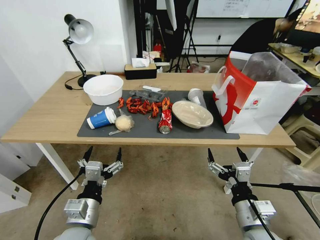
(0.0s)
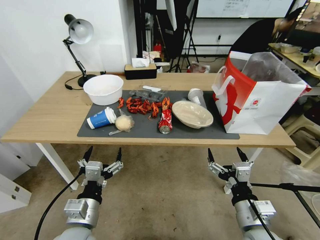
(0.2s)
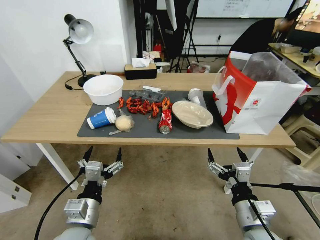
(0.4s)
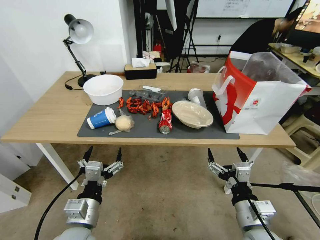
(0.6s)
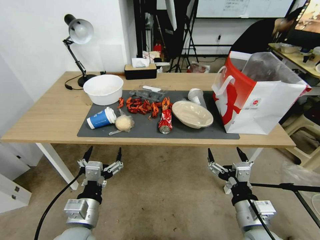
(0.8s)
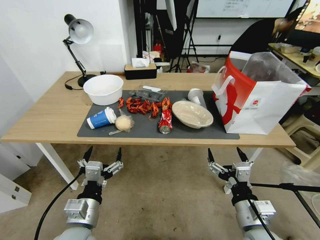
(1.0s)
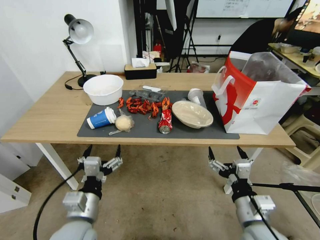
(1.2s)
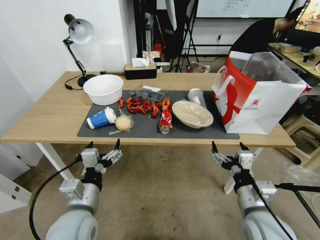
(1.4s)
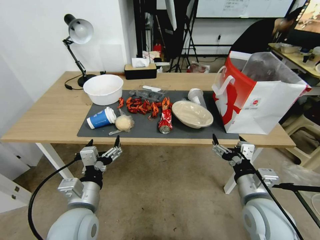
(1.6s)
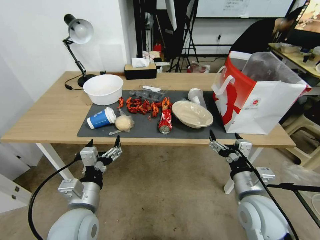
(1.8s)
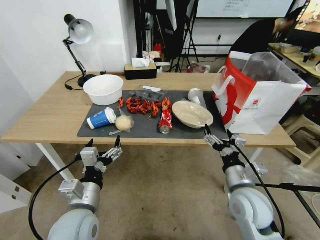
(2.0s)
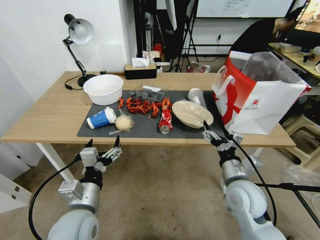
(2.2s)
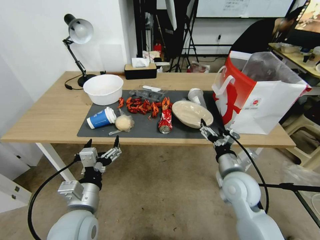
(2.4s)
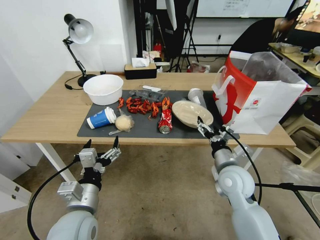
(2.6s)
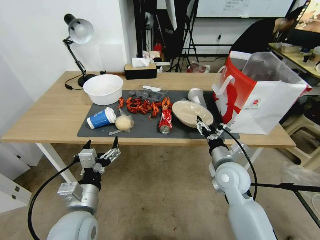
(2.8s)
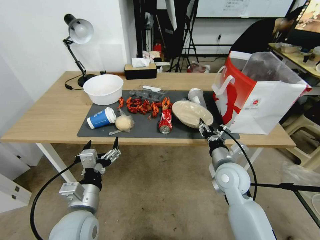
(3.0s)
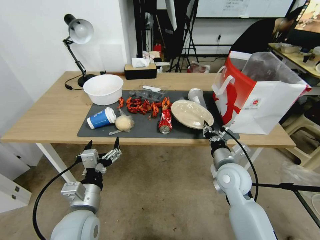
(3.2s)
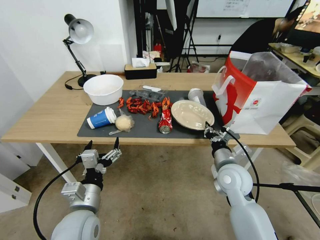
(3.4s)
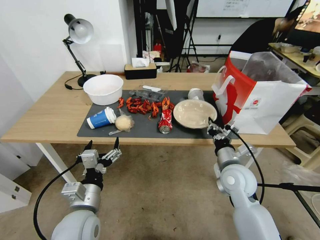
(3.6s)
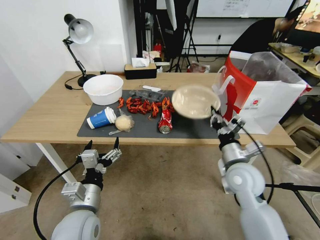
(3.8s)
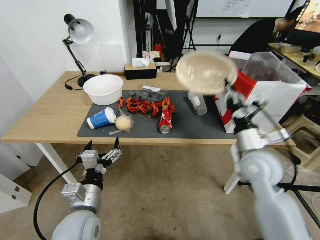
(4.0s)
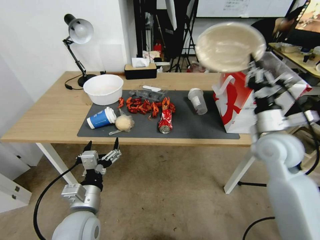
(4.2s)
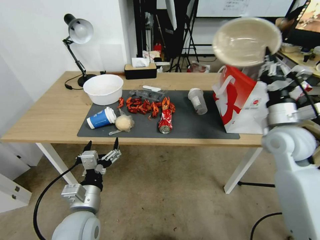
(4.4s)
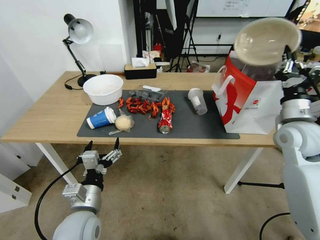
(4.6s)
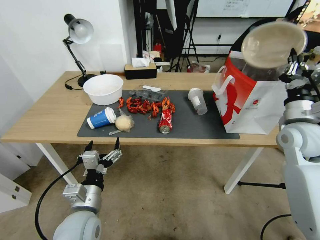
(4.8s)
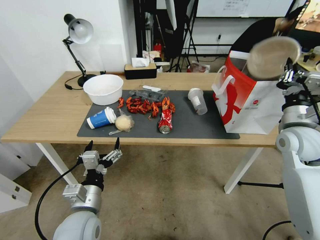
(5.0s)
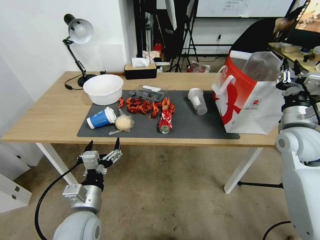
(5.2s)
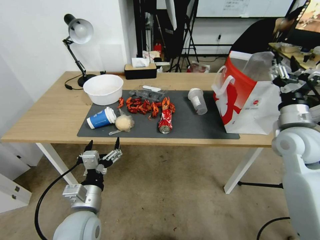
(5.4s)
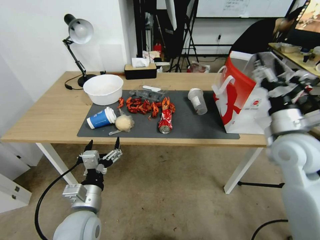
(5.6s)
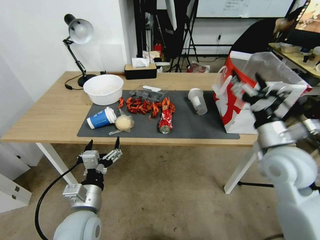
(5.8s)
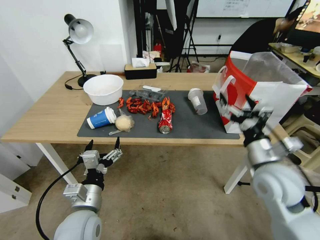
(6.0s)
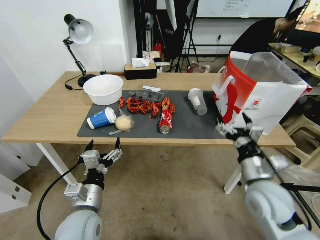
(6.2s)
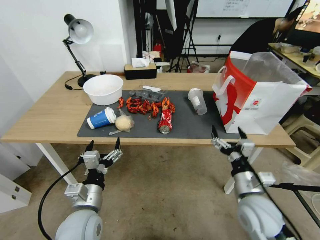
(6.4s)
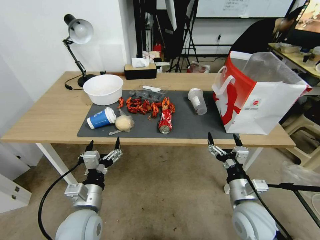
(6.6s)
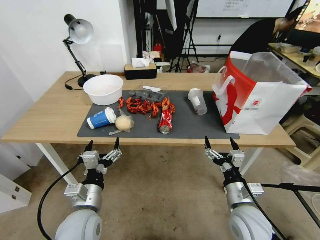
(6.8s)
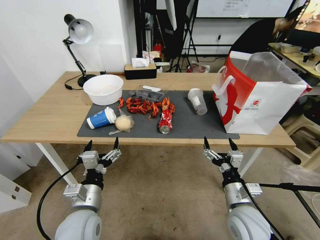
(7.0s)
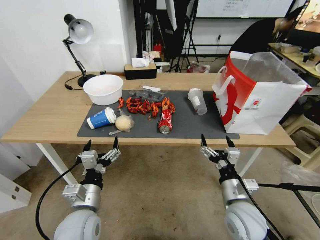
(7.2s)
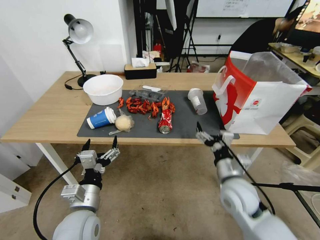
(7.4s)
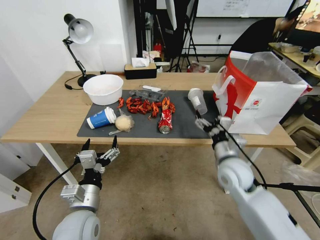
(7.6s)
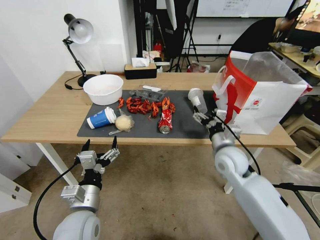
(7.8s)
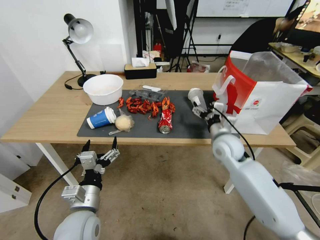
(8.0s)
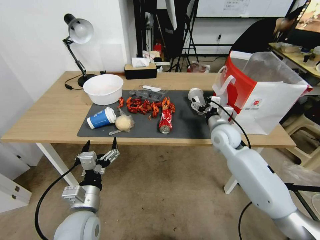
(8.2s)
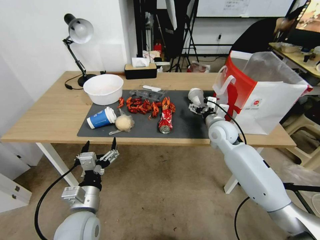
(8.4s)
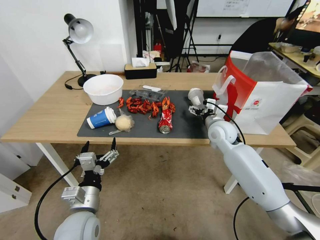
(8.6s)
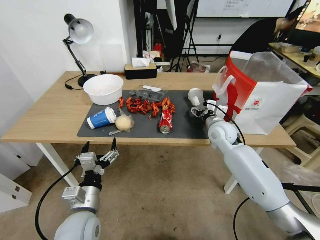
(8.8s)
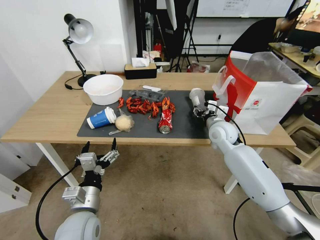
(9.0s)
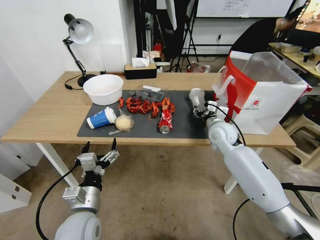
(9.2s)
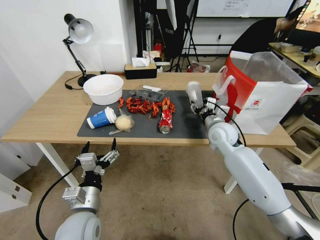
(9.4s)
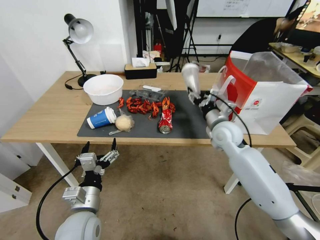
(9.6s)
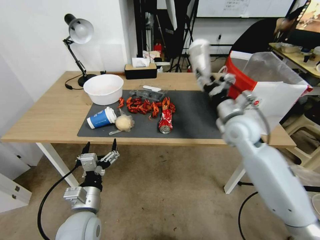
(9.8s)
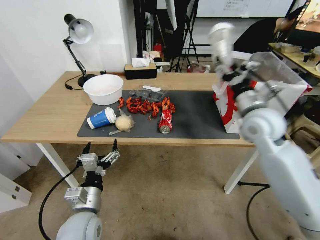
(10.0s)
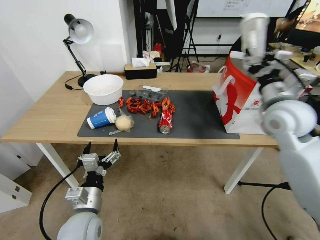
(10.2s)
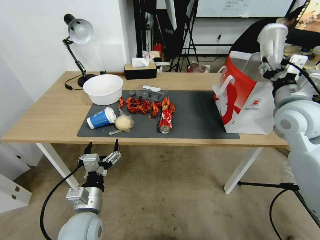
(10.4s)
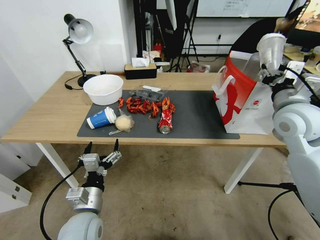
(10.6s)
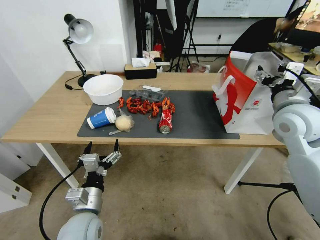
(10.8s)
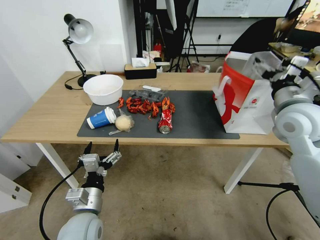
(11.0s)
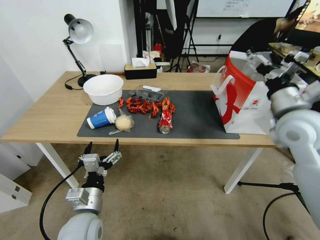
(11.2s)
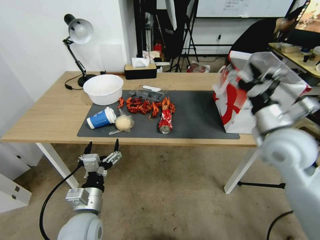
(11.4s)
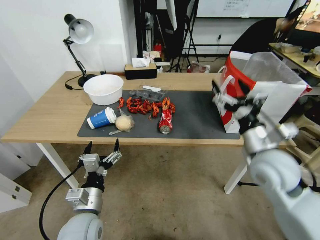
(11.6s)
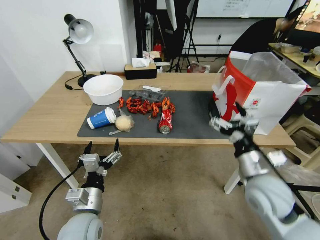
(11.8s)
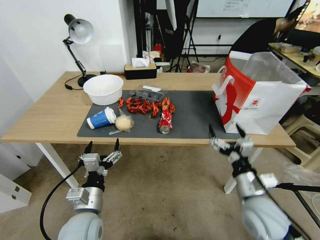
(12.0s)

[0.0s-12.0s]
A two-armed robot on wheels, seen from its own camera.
1.6s to 3.0s: The right gripper is displaced forward by approximately 10 cm, and closes its fingers.
3.0s to 4.4s: The right gripper goes about 15 cm upward and to the right, and closes its fingers.
4.4s to 6.0s: The right gripper is displaced backward by about 10 cm, and opens up.
6.0s to 7.6s: The right gripper moves downward and to the left, some 10 cm.
7.6s to 9.0s: The right gripper shifts some 15 cm forward, and closes.
9.0s to 10.4s: The right gripper goes approximately 25 cm upward, to the right and backward.
10.4s to 12.0s: The right gripper heads downward and backward, covering approximately 25 cm, and opens.

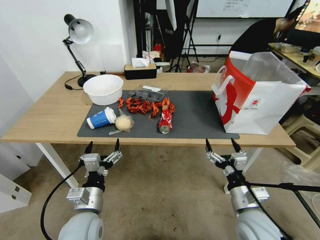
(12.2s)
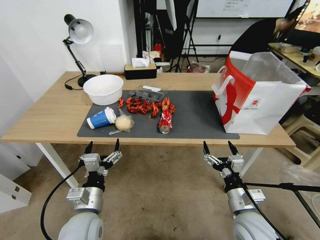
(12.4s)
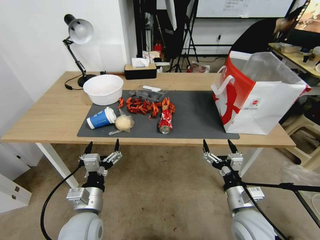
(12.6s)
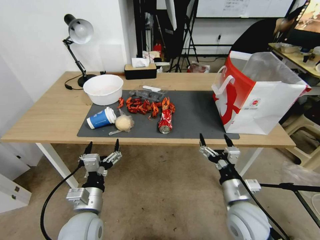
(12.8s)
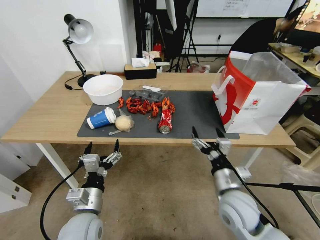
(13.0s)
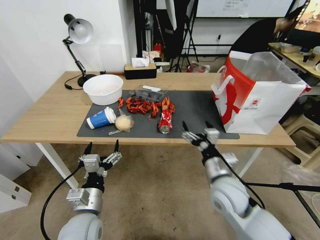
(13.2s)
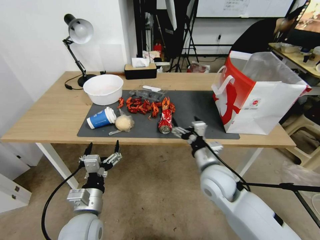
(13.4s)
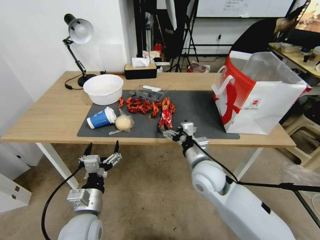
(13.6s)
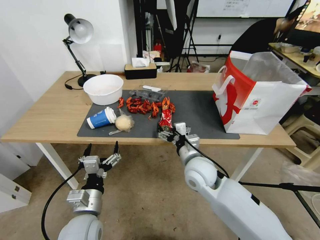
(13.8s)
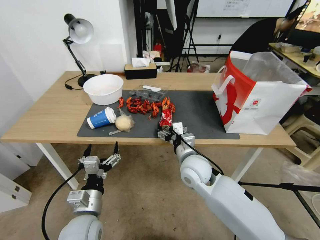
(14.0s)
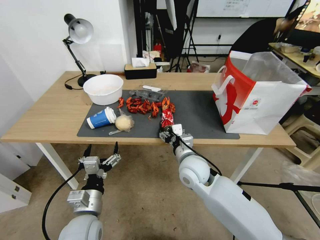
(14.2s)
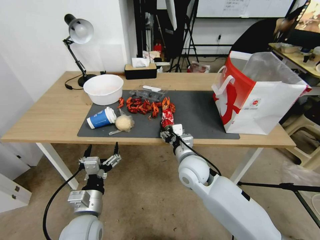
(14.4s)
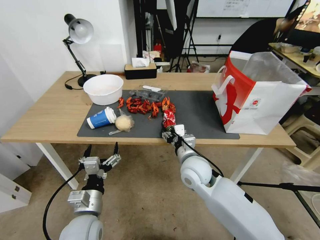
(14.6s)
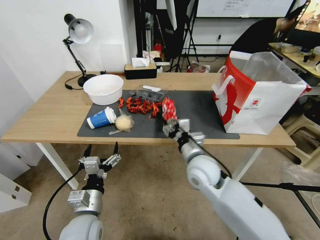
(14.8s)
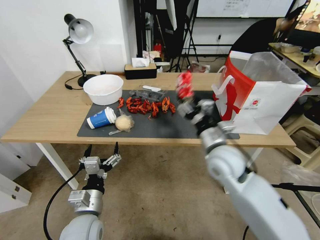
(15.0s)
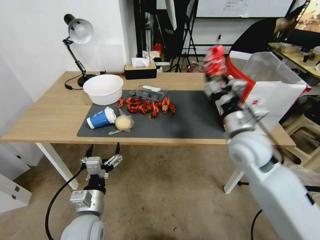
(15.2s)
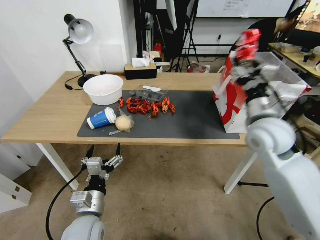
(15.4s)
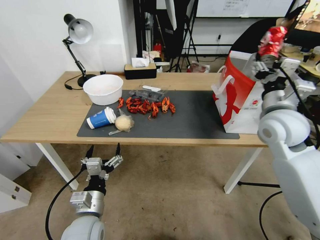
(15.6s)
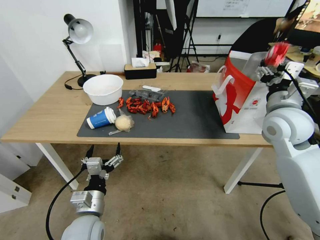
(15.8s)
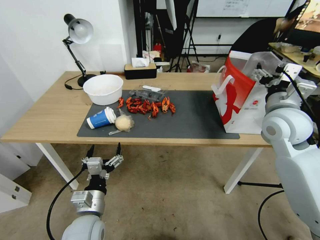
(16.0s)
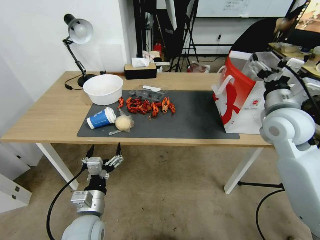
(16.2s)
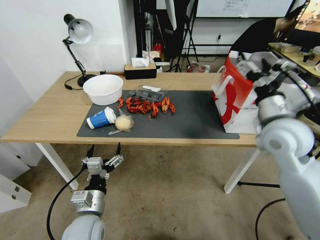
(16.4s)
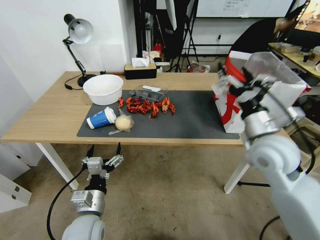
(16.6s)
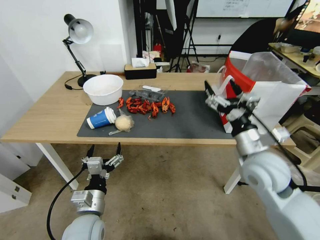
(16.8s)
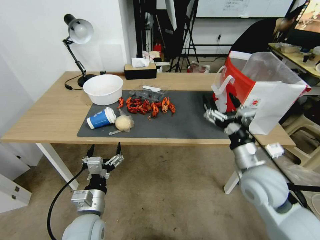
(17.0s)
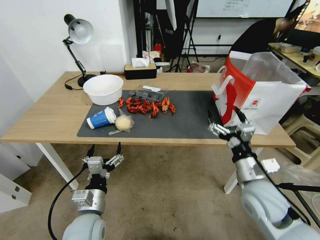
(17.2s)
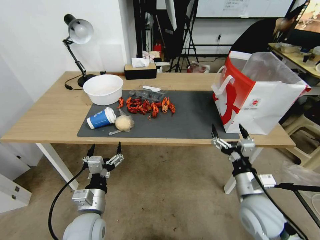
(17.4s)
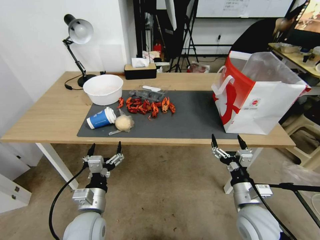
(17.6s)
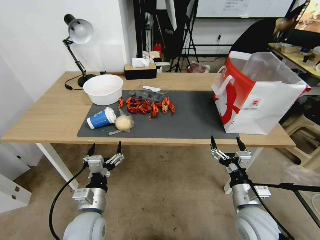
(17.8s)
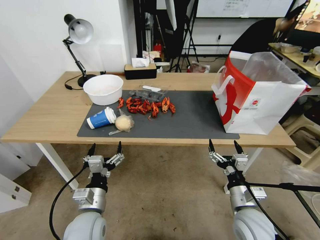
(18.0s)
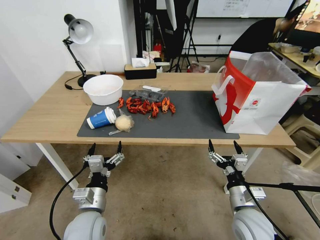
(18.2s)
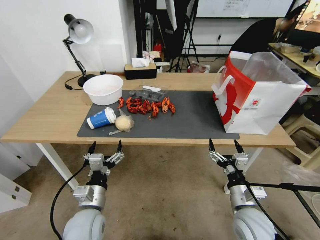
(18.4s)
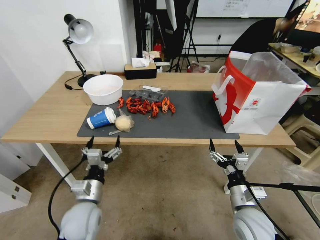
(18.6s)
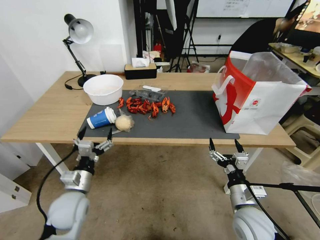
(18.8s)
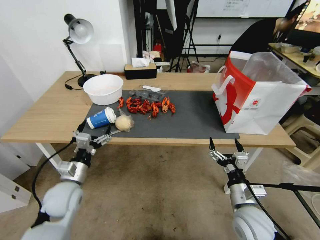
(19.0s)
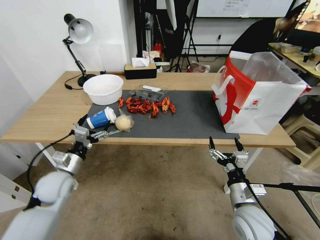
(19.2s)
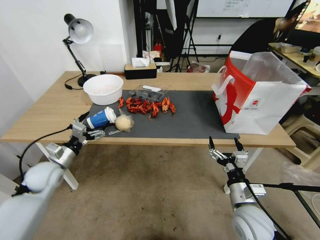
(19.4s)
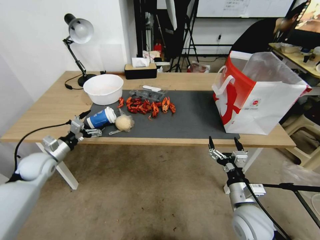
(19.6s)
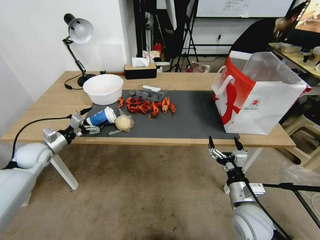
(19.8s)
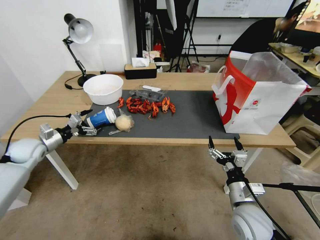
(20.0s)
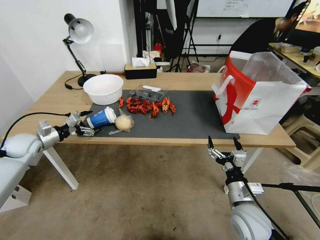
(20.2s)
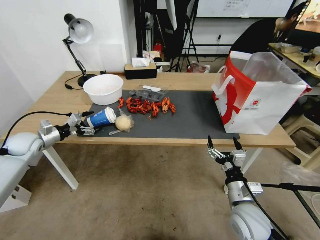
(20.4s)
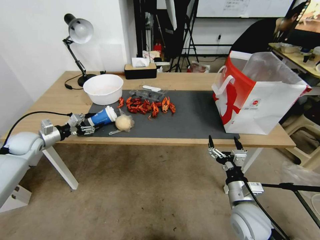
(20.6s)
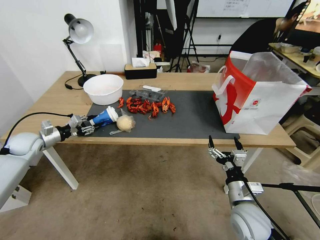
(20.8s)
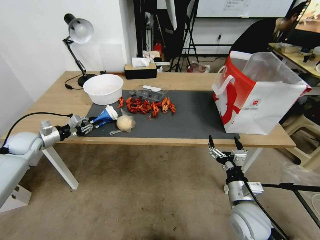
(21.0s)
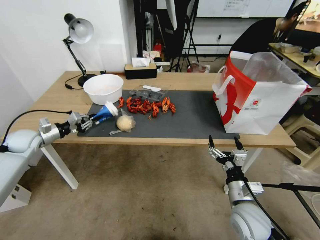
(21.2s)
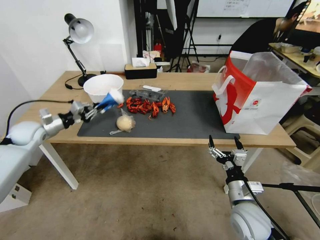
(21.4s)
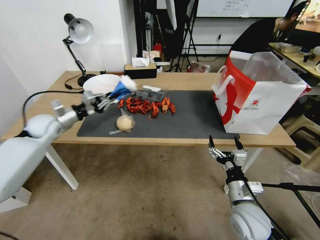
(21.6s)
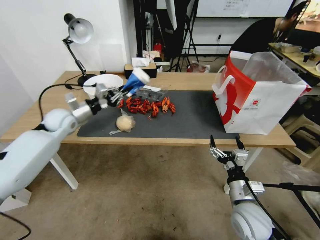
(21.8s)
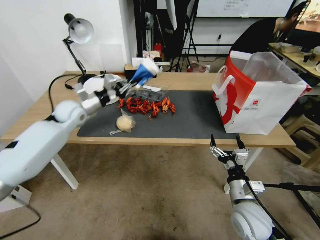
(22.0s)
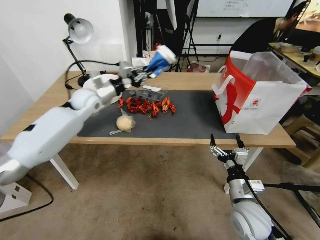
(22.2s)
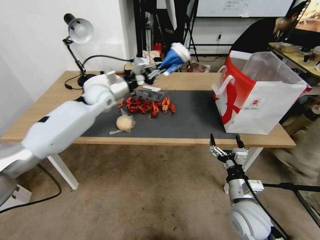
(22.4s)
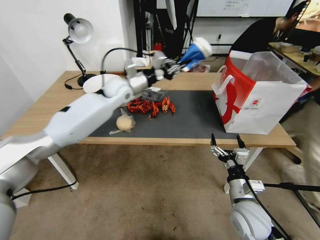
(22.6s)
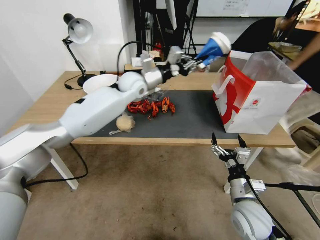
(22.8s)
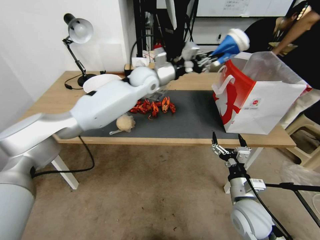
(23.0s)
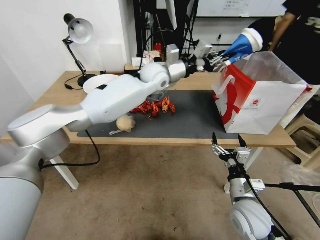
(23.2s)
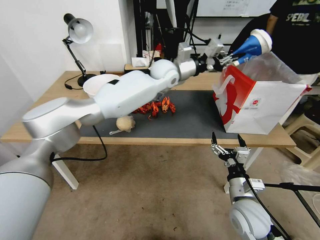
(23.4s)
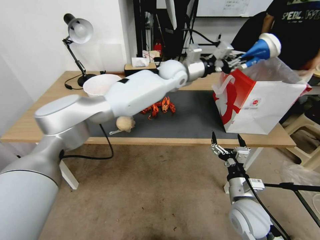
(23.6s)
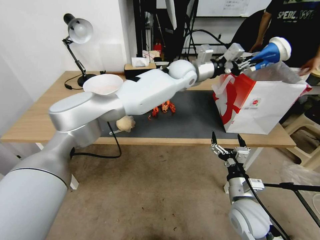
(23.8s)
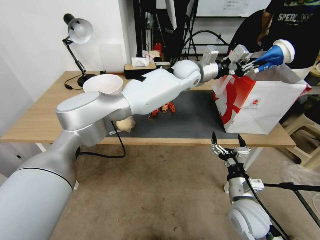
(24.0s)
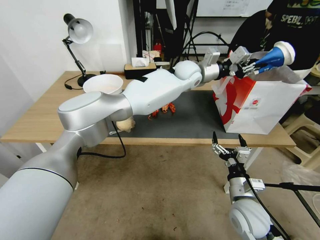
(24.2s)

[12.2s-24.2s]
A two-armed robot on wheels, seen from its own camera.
12.2s to 13.8s: The right gripper is displaced forward and to the left by some 20 cm.
13.8s to 15.2s: The right gripper is displaced upward and to the right by some 15 cm, and closes its fingers.
15.2s to 16.6s: The right gripper opens its fingers.
16.6s to 18.2s: The right gripper is displaced downward and backward by some 25 cm.
18.2s to 19.8s: The left gripper moves to the left and forward, some 30 cm.
19.8s to 21.2s: The left gripper changes place by about 5 cm, and closes up.
21.2s to 22.6s: The left gripper heads to the right, covering about 35 cm.
22.6s to 24.2s: The left gripper travels to the right by roughly 25 cm.
